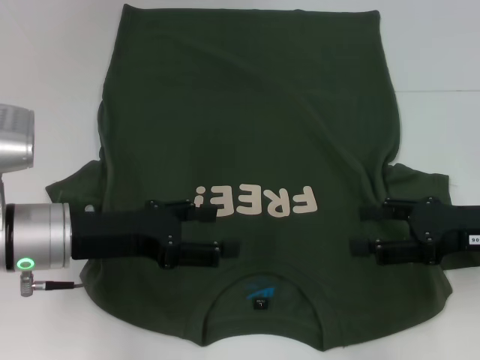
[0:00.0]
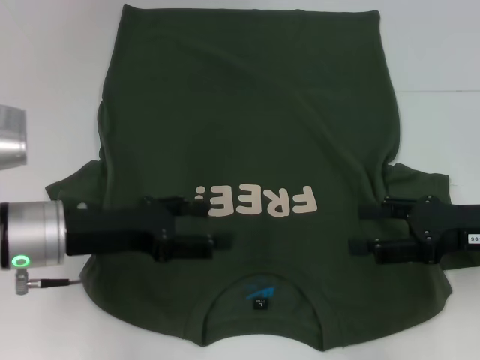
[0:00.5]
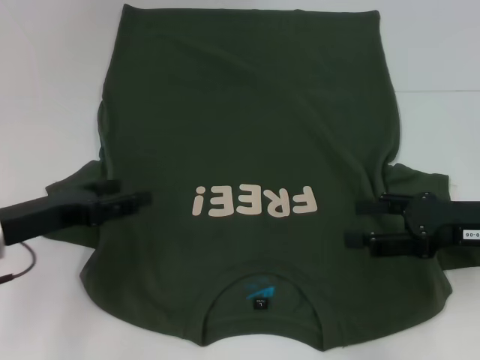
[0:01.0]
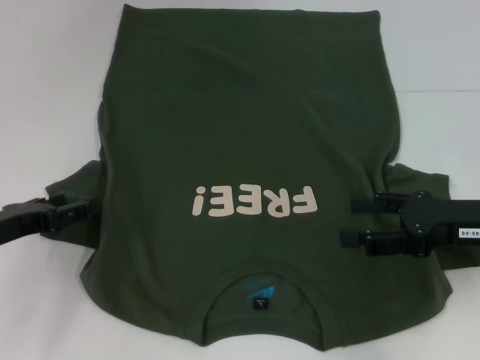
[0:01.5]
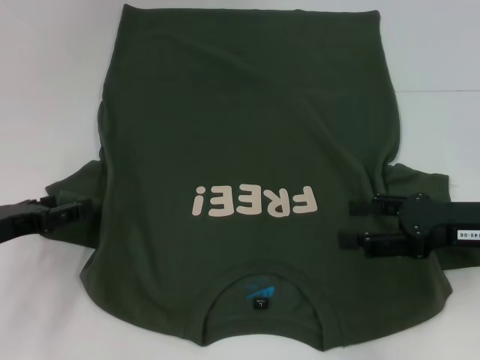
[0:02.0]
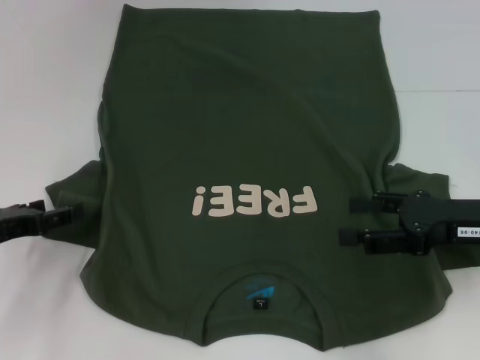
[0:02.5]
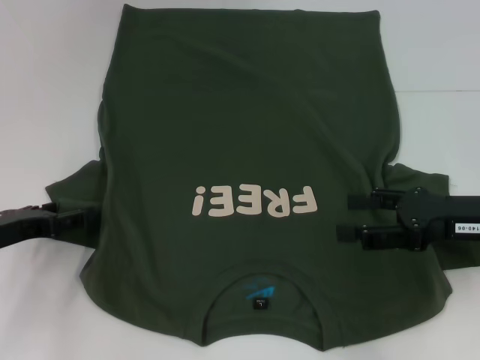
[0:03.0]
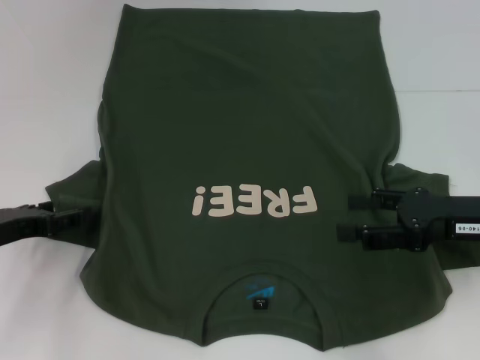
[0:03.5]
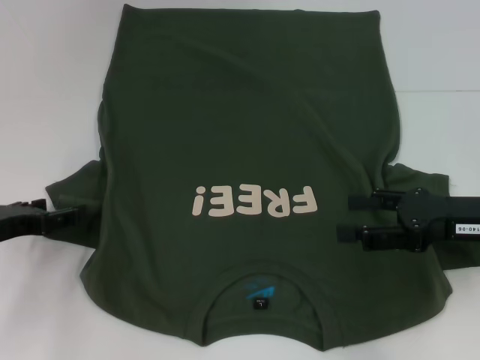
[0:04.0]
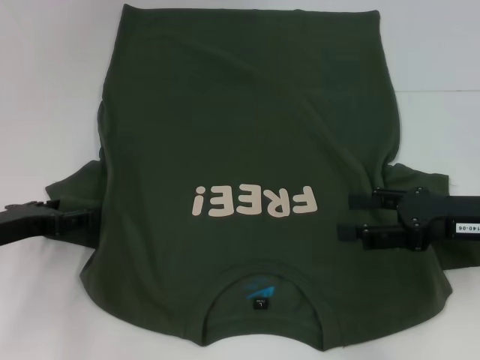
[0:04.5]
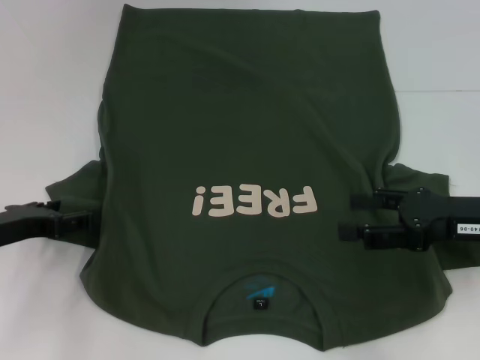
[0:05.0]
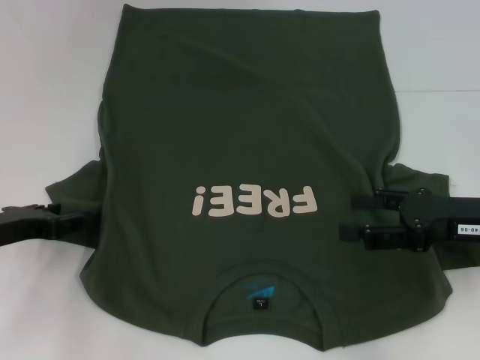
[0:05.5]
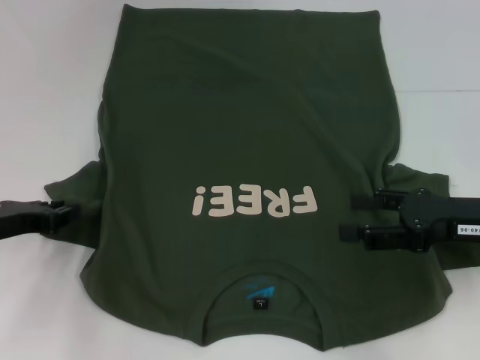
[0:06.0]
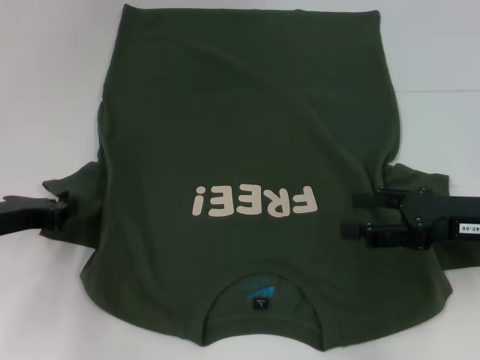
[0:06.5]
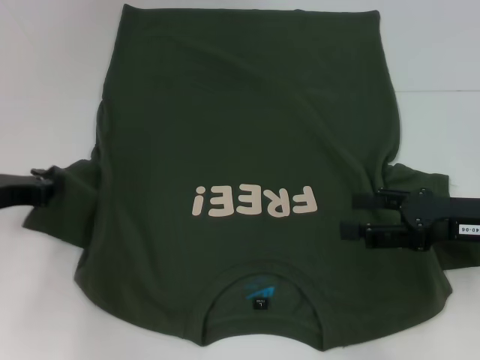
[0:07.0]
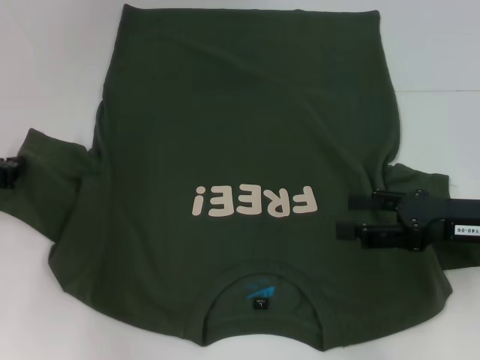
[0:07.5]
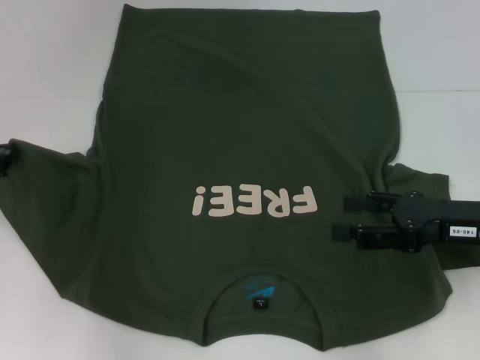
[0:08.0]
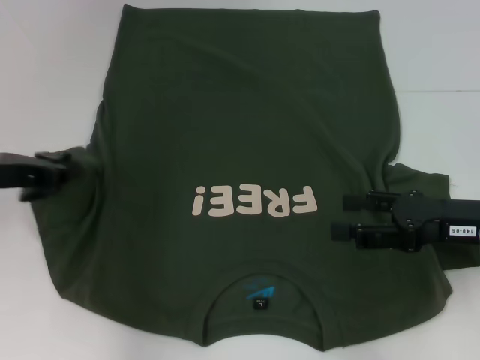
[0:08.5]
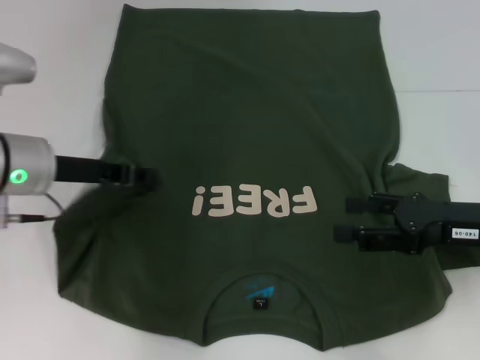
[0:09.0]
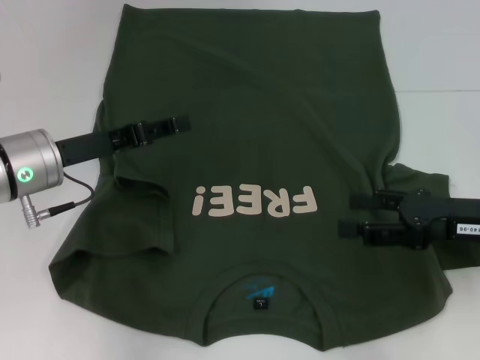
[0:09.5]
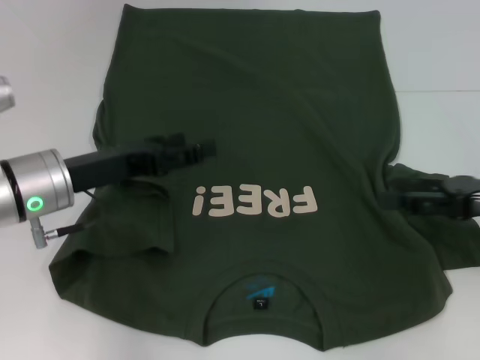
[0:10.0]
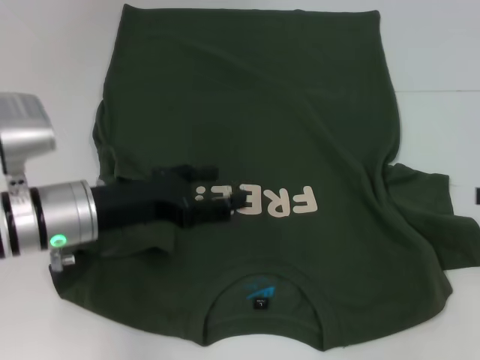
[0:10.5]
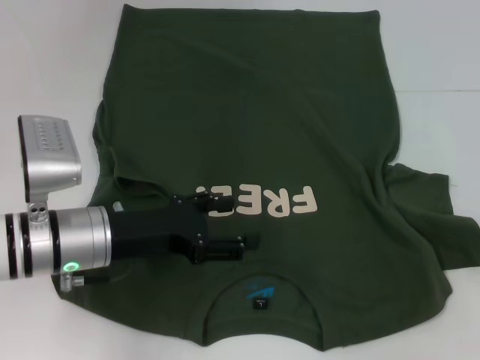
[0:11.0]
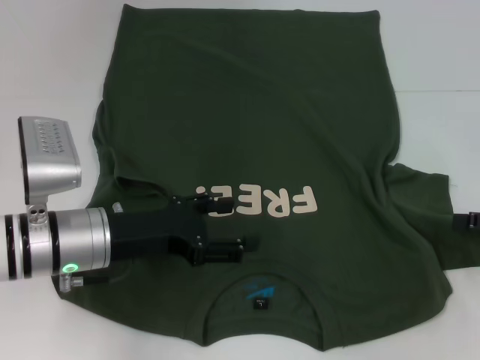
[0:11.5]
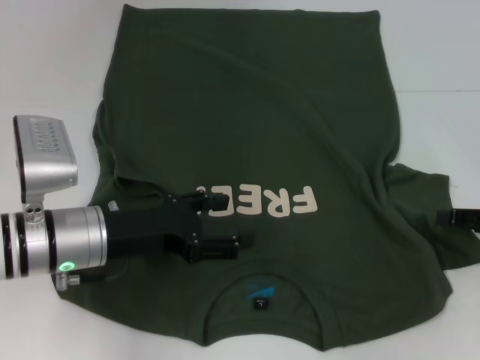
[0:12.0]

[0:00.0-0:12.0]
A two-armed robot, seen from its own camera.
Step, 0:00.0 to 0:10.0: Fold the bottom left sleeve with your left hand.
0:00.0 to 0:02.0: The left gripper heads to the left, covering about 10 cm.
0:02.0 to 0:04.0: The grippers move only a little.
0:06.0 to 0:08.0: The left gripper is displaced upward by roughly 5 cm, and closes up.
0:08.0 to 0:10.0: The left gripper goes about 10 cm to the right, and opens up.
0:10.0 to 0:12.0: The right gripper shifts by about 5 cm.

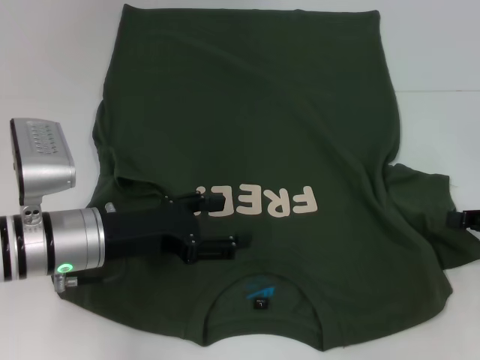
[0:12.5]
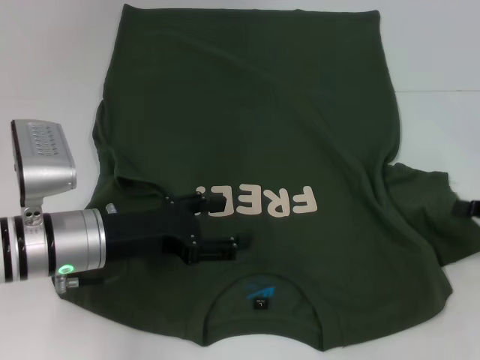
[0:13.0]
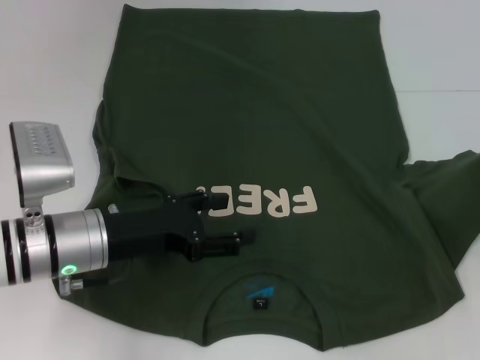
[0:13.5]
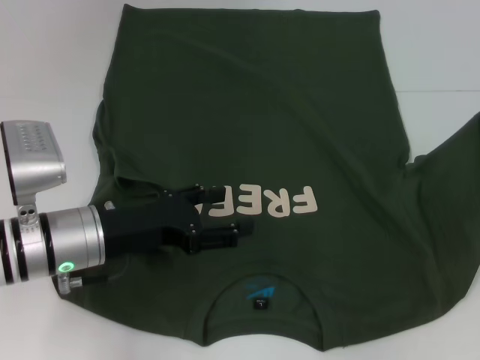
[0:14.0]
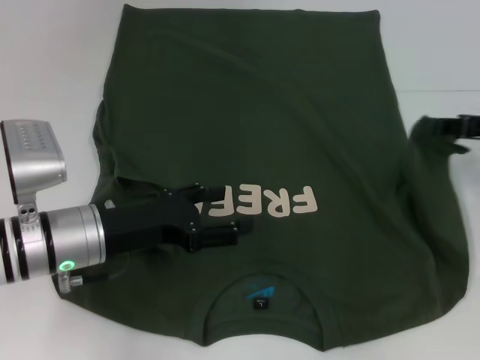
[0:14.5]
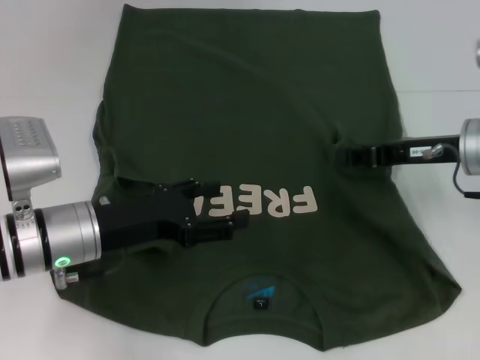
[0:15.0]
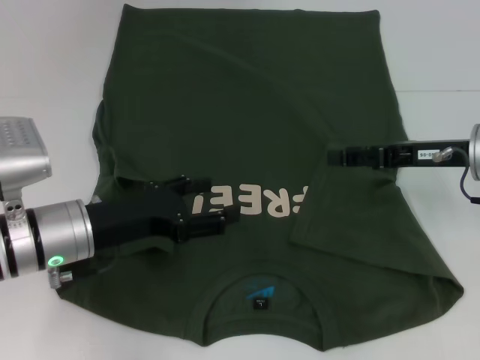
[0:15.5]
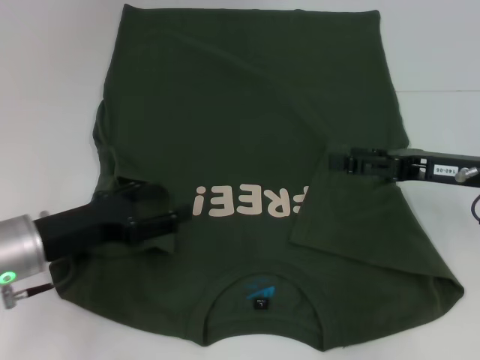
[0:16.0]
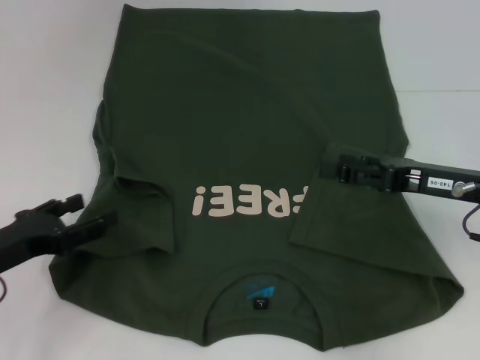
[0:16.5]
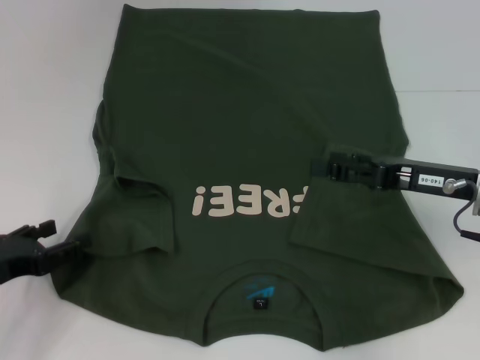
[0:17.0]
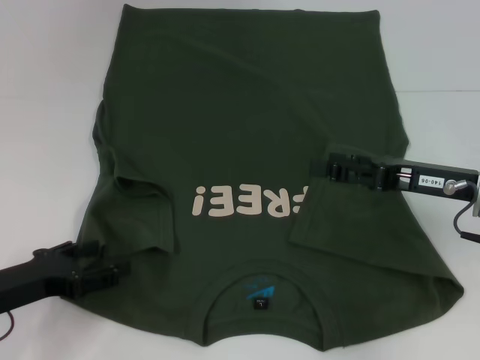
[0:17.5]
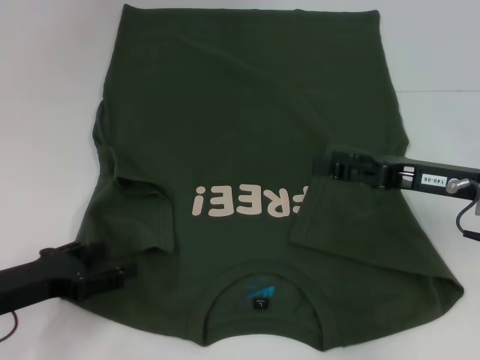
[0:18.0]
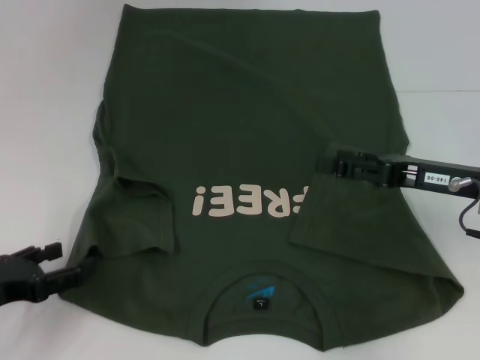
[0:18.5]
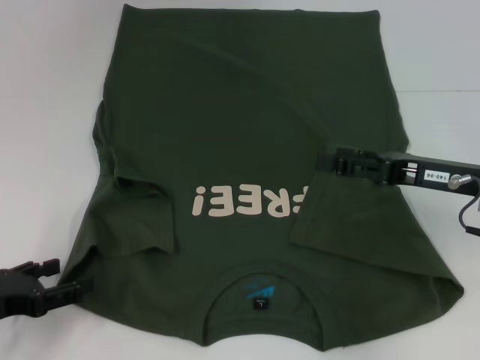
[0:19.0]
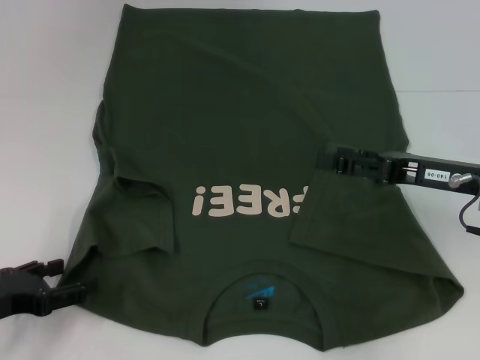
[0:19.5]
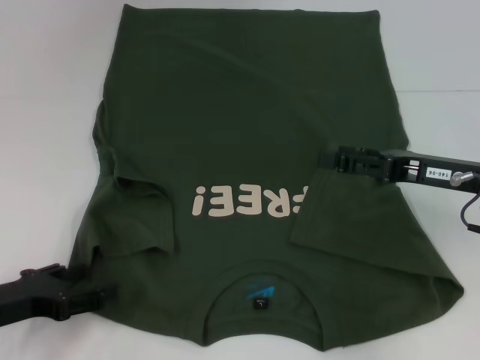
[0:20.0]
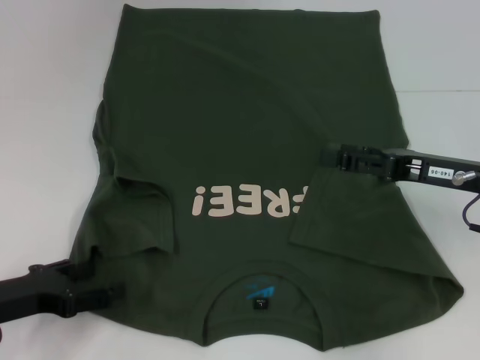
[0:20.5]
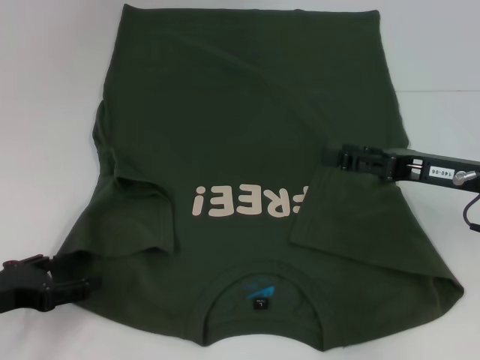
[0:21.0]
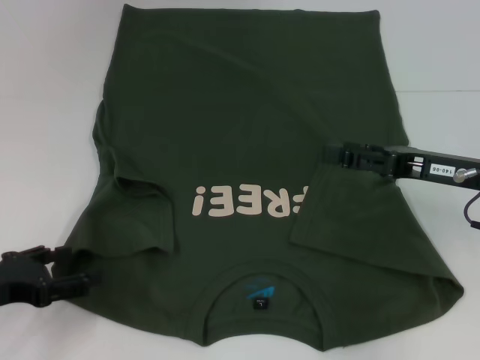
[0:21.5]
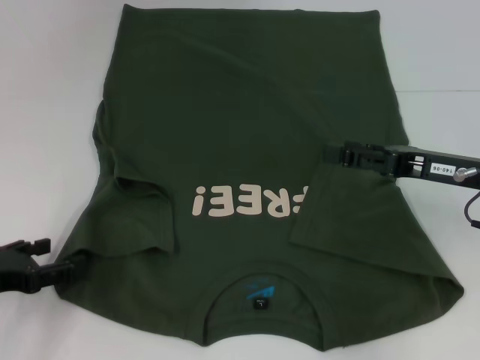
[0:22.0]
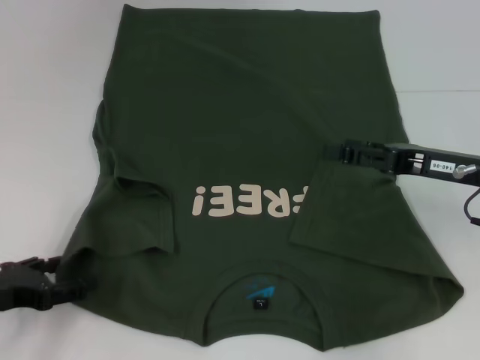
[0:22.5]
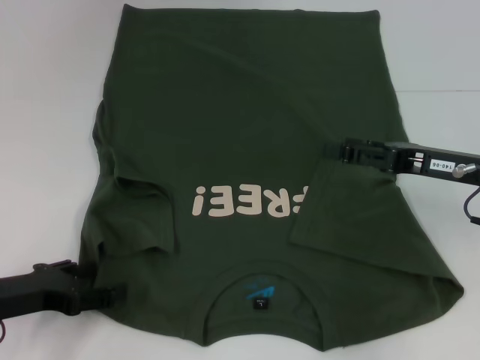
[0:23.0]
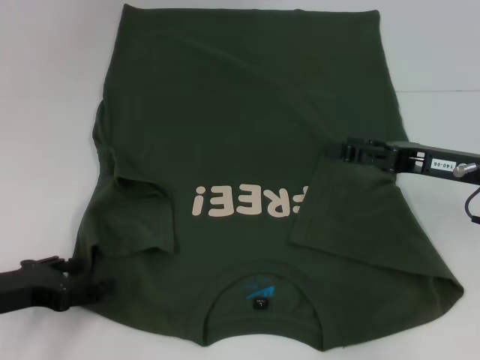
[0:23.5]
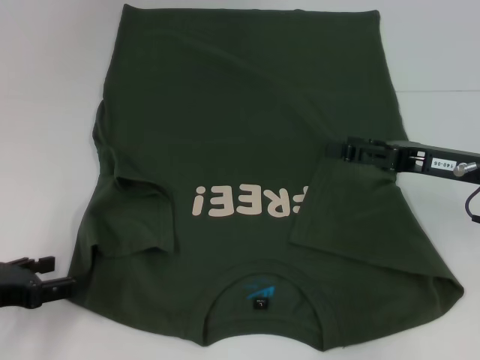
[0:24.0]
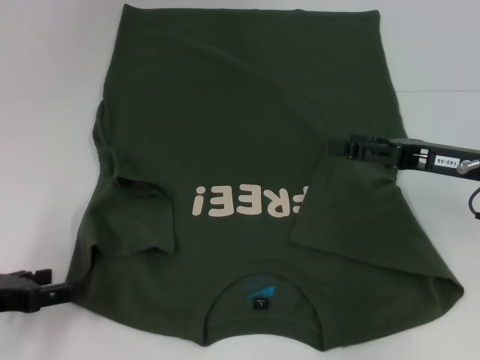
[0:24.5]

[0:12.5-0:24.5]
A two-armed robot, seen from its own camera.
Step, 0:12.5 to 0:15.5: Fold the bottom right sleeve with your right hand.
0:12.5 to 0:14.5: The right gripper goes roughly 10 cm forward and upward.
0:14.5 to 0:16.5: The grippers both shift to the left by approximately 10 cm. The right gripper opens.
0:16.5 to 0:22.5: There are only small adjustments of the grippers.
0:22.5 to 0:24.5: The grippers make only small movements.

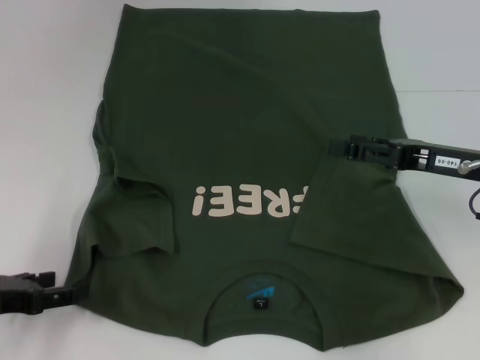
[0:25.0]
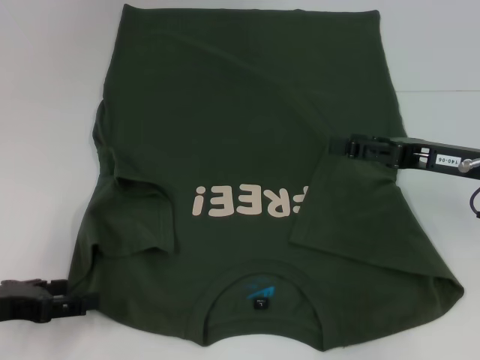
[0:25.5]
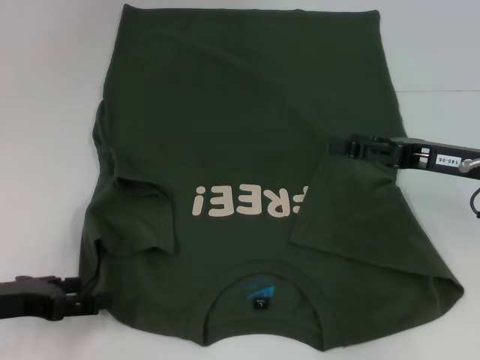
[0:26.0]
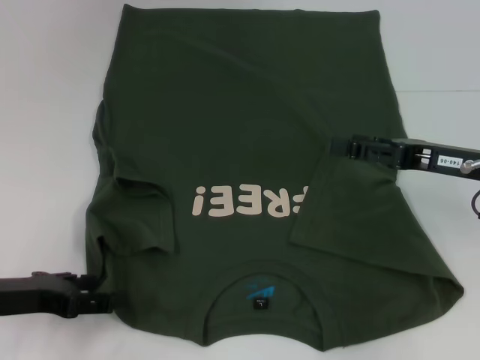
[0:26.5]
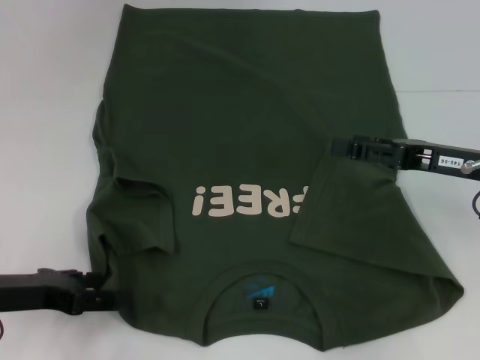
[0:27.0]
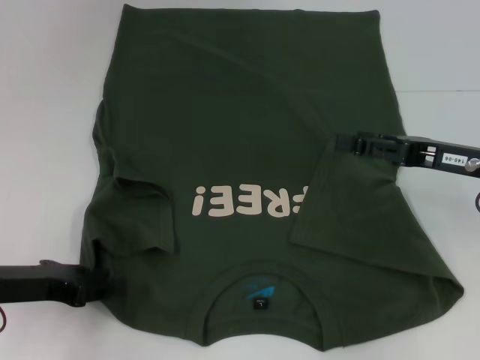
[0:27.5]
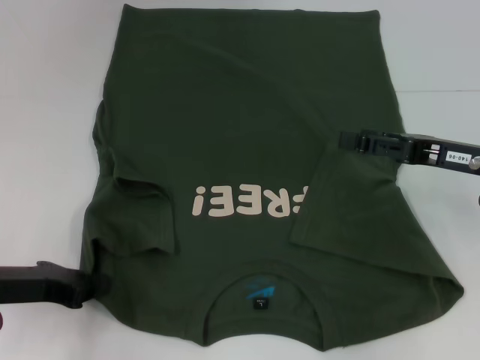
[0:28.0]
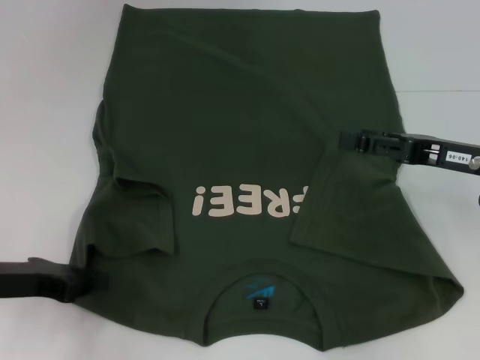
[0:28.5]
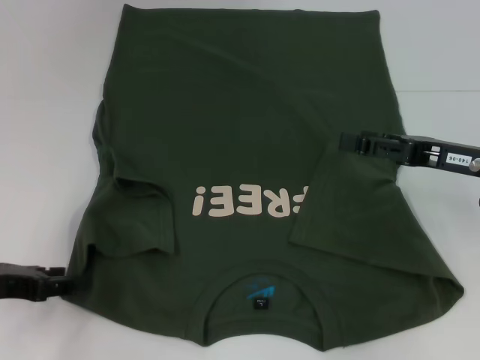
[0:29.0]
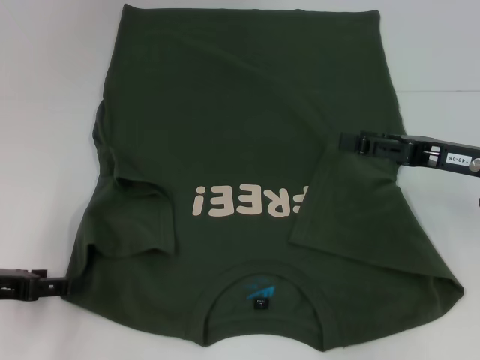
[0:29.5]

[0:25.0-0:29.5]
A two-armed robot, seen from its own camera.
Step, 0:25.0 to 0:28.5: Grab the bottom left corner with your left hand.
0:25.0 to 0:27.0: The grippers stay close to where they were, moving slightly.
0:27.0 to 0:29.5: The left gripper closes, then opens again.
